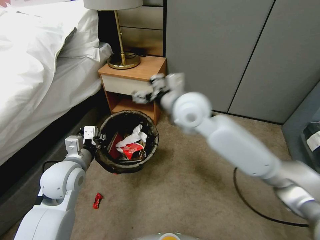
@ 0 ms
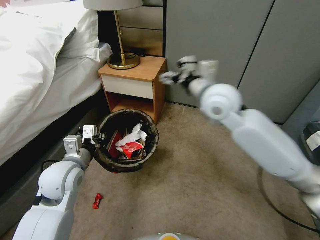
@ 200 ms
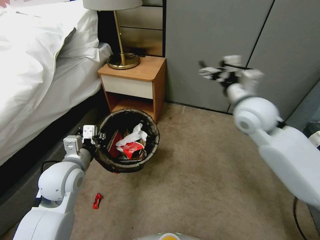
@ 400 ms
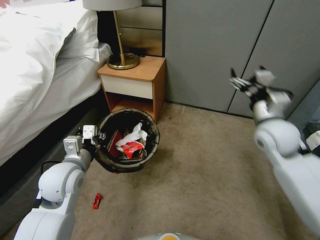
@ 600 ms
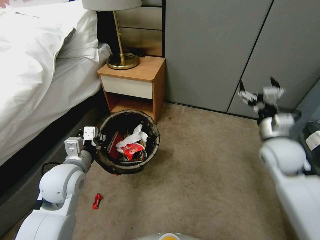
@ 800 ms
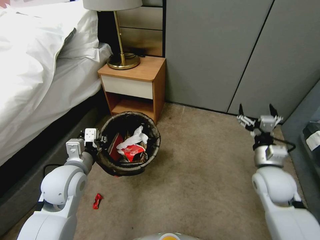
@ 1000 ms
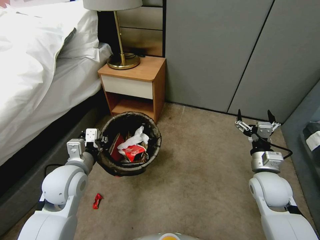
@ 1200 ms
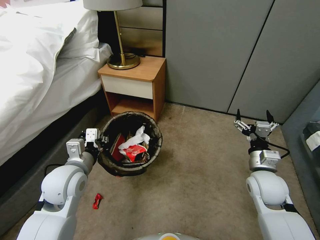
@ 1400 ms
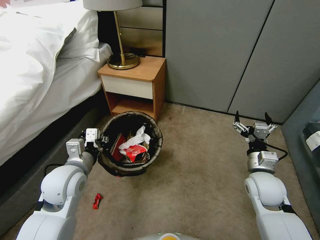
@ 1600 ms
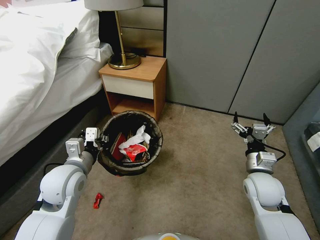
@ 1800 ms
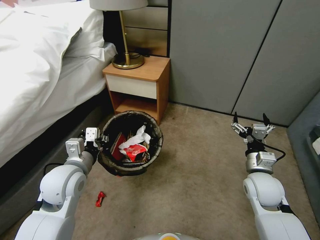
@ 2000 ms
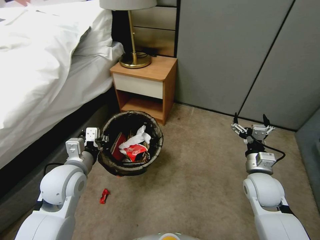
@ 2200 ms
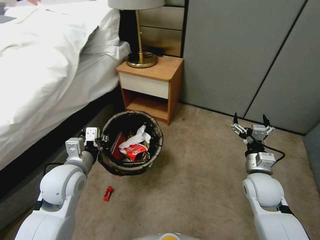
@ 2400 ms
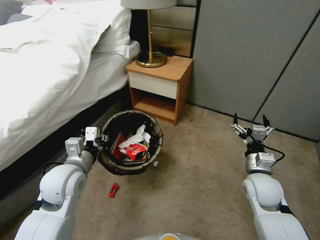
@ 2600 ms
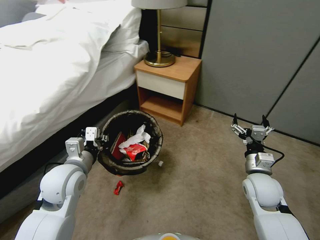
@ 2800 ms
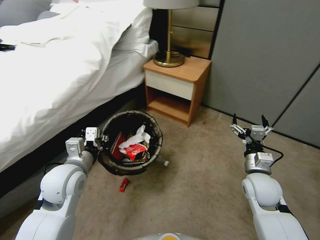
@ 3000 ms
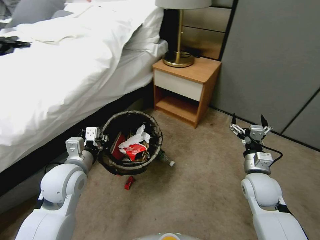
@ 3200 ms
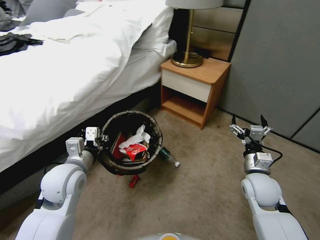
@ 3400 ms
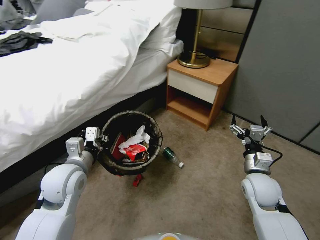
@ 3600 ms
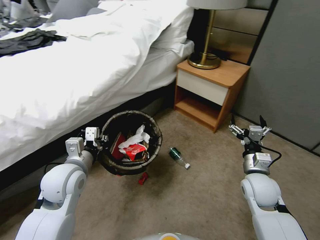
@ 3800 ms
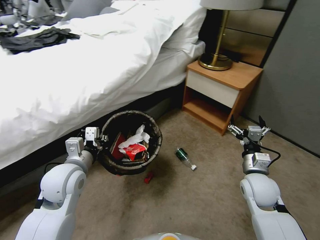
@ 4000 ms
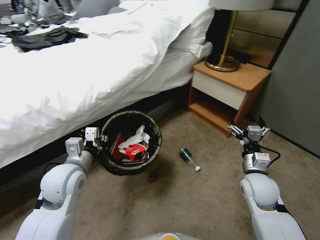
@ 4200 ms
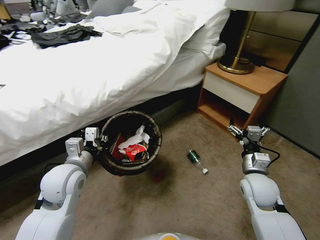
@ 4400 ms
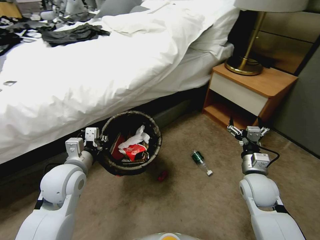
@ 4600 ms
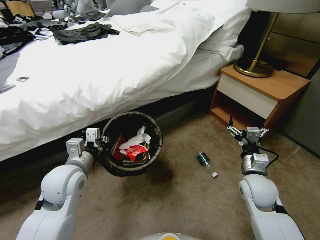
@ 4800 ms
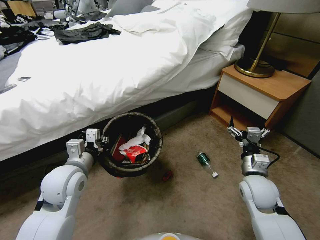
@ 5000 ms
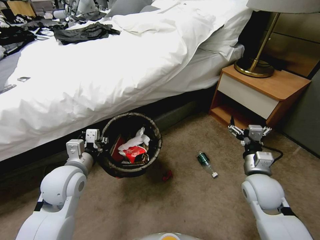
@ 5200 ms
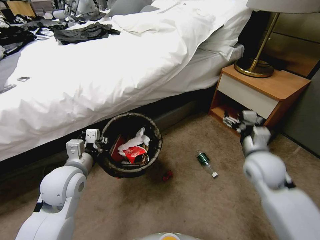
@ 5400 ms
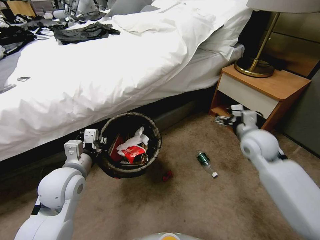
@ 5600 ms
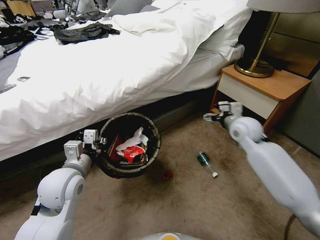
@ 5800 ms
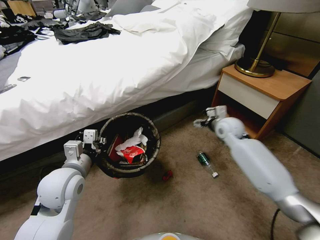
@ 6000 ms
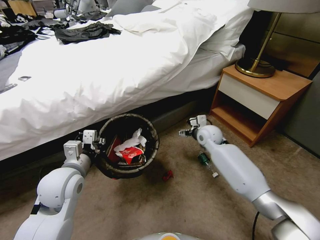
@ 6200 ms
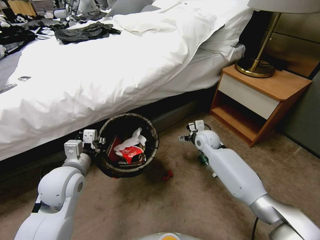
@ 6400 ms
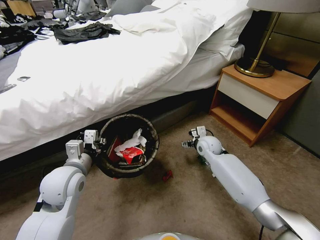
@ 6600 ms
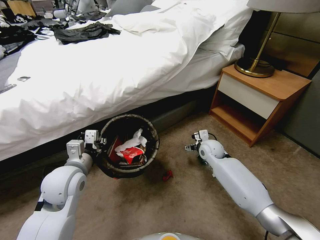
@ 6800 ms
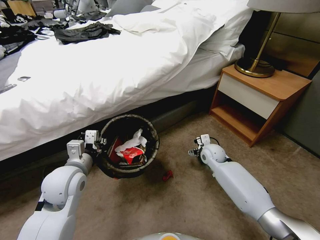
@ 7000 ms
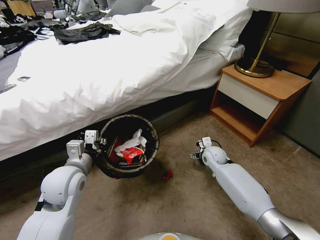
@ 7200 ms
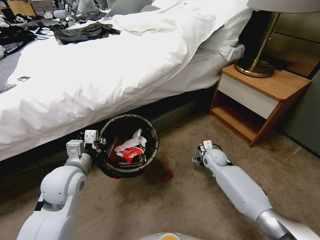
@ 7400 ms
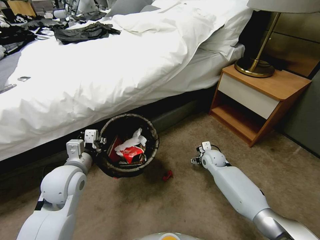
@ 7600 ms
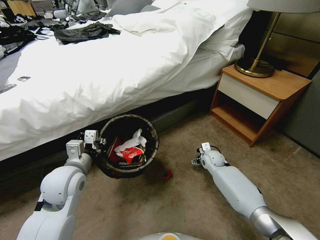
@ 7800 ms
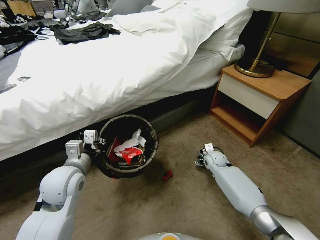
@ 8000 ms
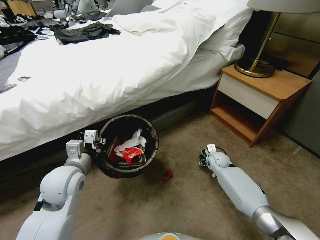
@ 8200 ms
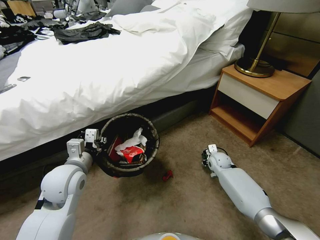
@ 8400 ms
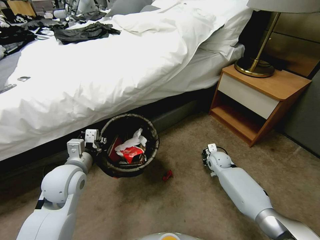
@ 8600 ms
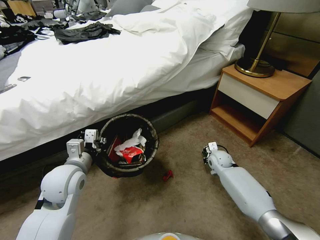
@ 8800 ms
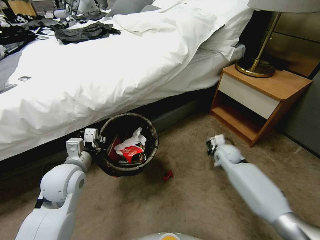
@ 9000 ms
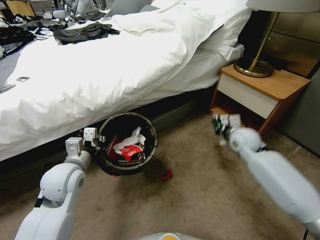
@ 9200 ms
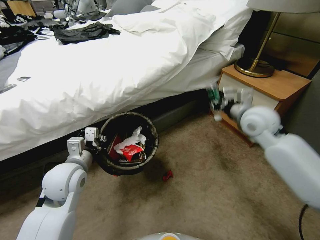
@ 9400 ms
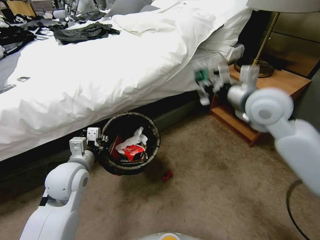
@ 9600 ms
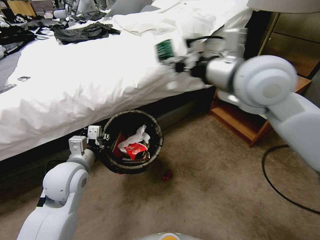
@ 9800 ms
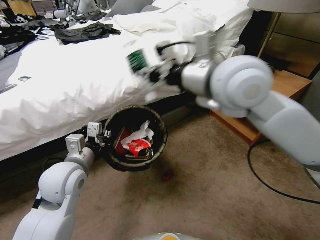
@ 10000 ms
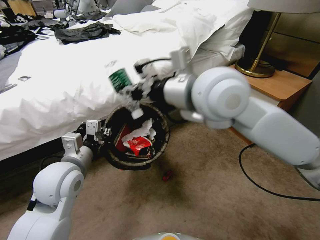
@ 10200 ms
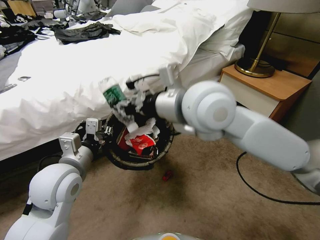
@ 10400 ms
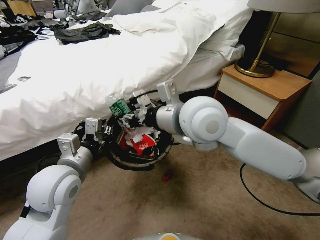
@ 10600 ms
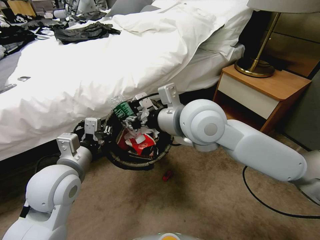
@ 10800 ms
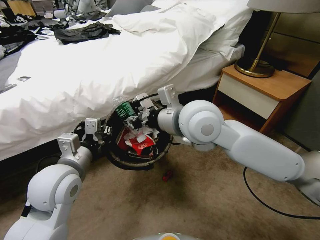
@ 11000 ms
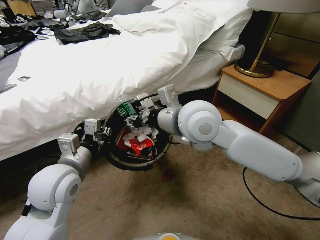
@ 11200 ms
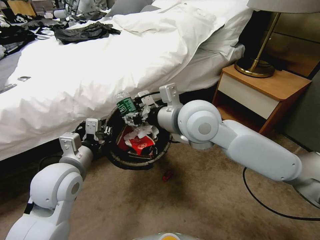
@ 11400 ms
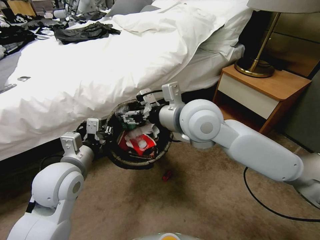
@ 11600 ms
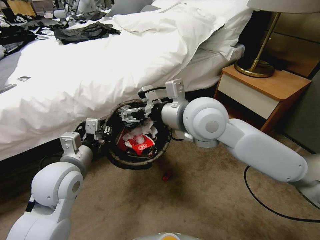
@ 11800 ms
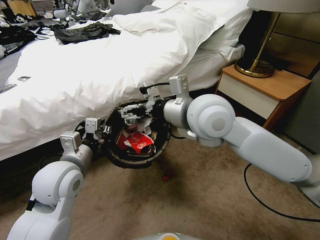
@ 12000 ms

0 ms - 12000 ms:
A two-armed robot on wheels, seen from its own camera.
Task of the whole recording: Pick up the trash bin, then pick up the garbage from the floor and place it into the trash bin.
0 ms - 1600 ms: The right gripper heads to the right, downward and backward, covering about 35 cm.
4400 ms - 6000 ms: The right gripper travels forward by some 20 cm.
6000 ms - 7600 ms: The right gripper moves downward, about 15 cm.
7600 ms - 9000 ms: The right gripper is displaced upward and to the right by about 10 cm, and closes up.
9000 ms - 10400 ms: The right gripper travels upward and to the left by some 40 cm, while the left gripper goes approximately 5 cm upward.
10400 ms - 12000 ms: The right gripper opens its fingers.

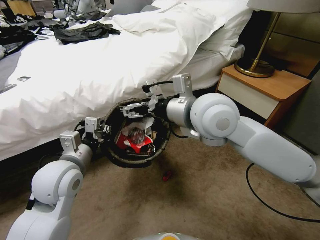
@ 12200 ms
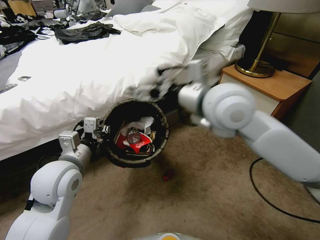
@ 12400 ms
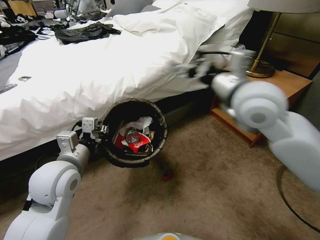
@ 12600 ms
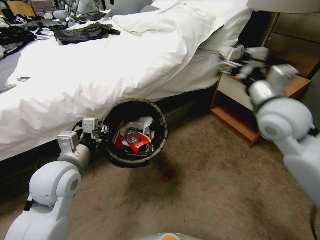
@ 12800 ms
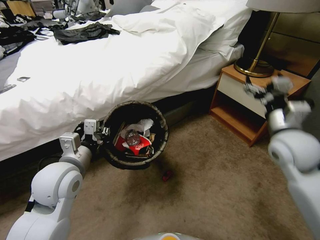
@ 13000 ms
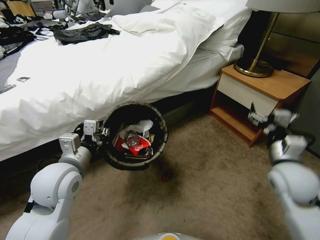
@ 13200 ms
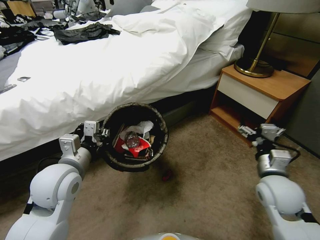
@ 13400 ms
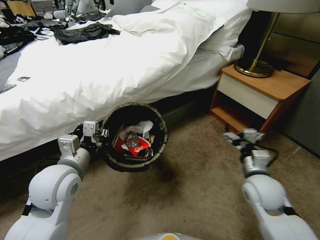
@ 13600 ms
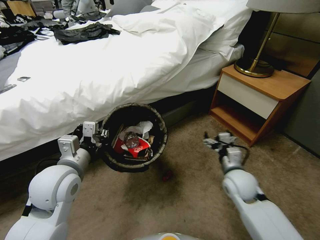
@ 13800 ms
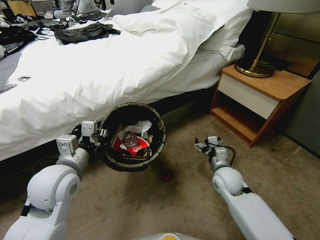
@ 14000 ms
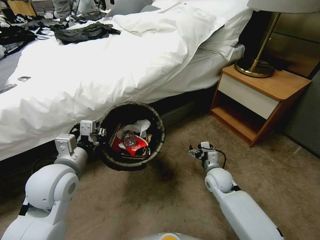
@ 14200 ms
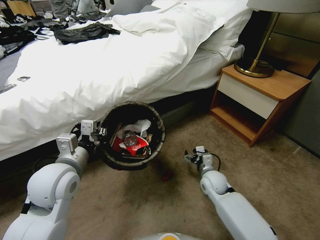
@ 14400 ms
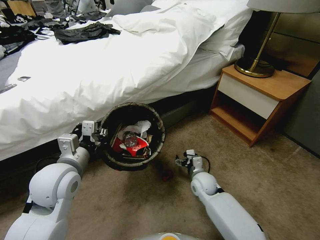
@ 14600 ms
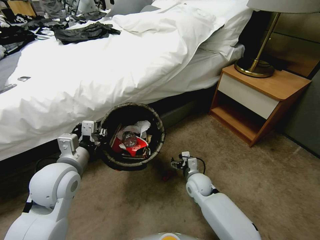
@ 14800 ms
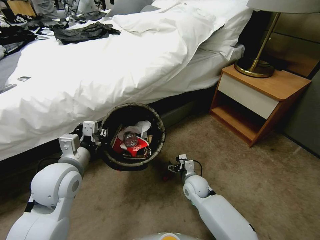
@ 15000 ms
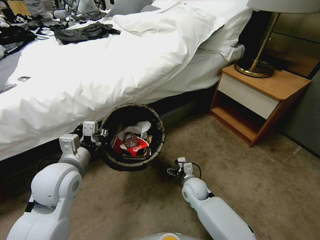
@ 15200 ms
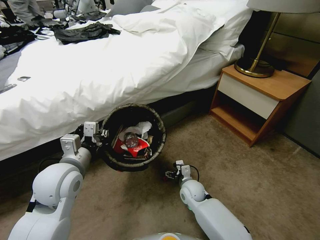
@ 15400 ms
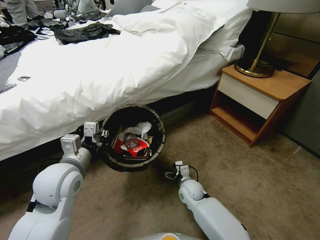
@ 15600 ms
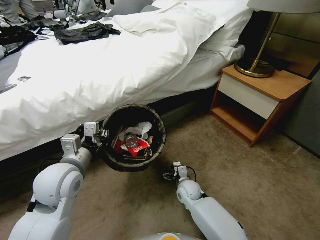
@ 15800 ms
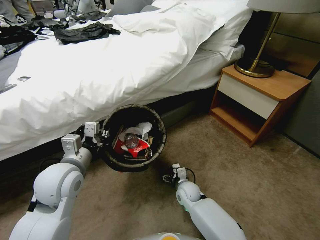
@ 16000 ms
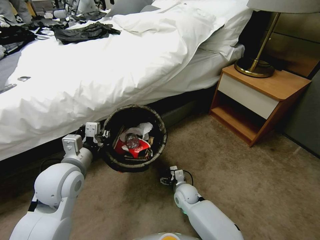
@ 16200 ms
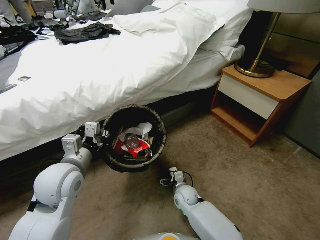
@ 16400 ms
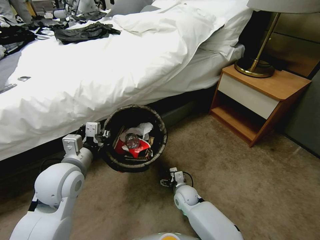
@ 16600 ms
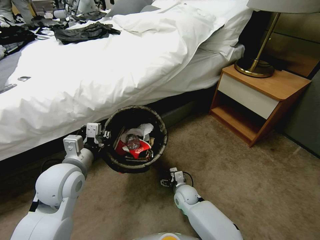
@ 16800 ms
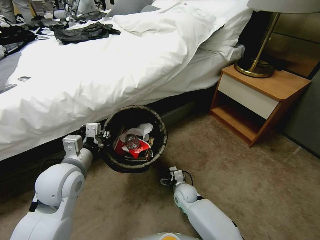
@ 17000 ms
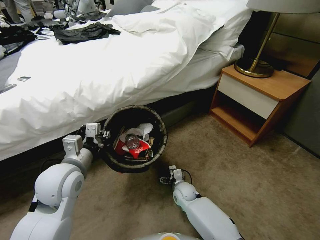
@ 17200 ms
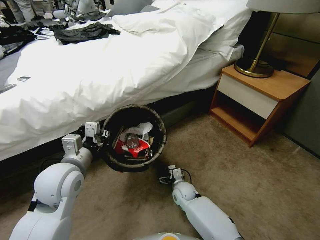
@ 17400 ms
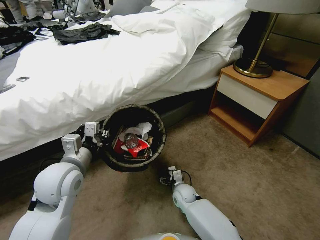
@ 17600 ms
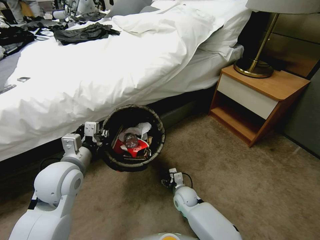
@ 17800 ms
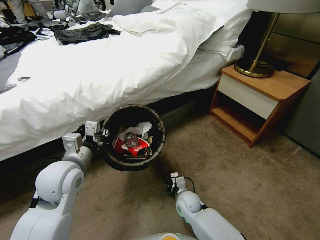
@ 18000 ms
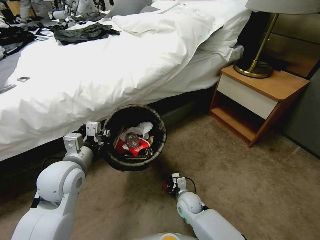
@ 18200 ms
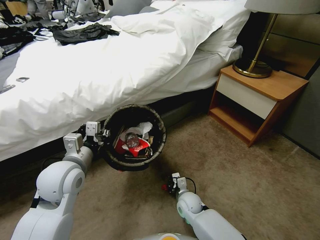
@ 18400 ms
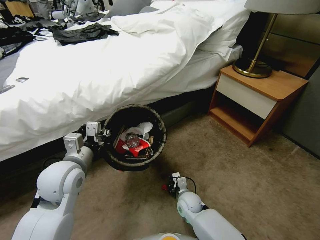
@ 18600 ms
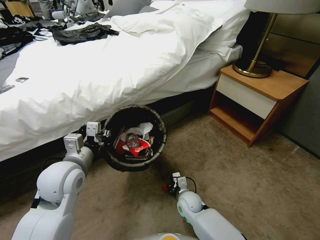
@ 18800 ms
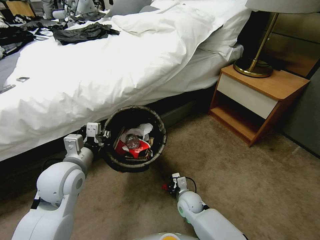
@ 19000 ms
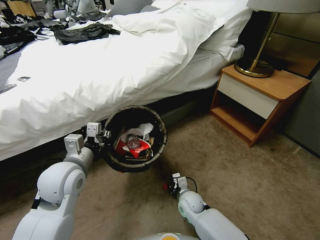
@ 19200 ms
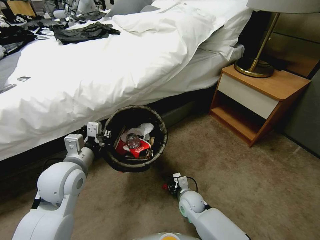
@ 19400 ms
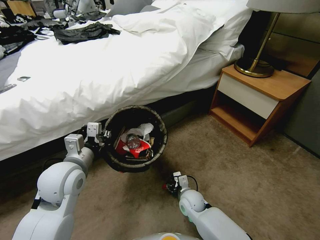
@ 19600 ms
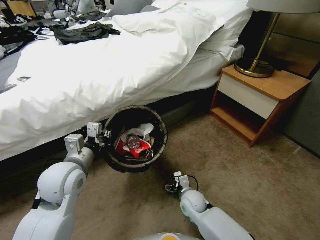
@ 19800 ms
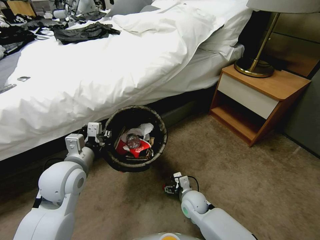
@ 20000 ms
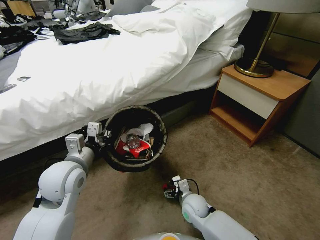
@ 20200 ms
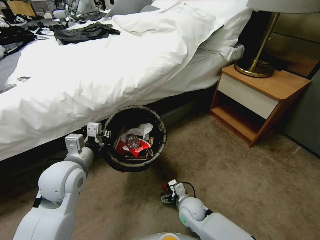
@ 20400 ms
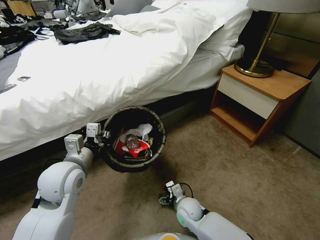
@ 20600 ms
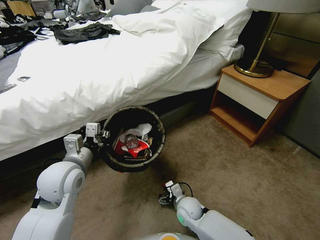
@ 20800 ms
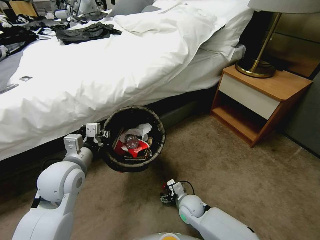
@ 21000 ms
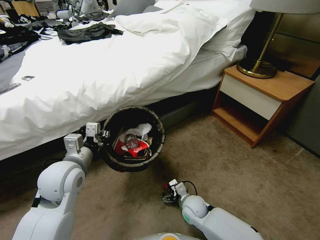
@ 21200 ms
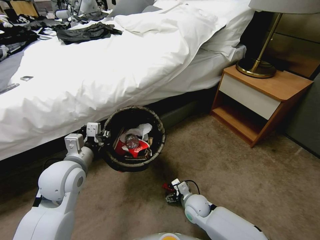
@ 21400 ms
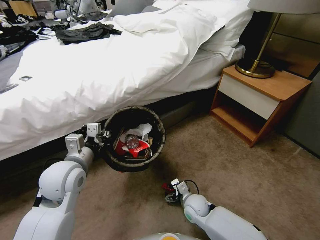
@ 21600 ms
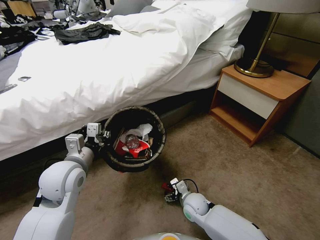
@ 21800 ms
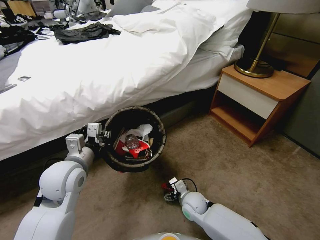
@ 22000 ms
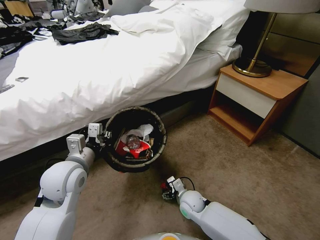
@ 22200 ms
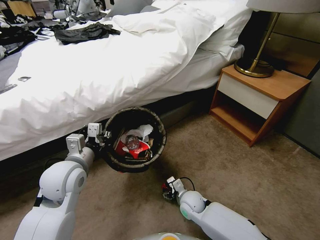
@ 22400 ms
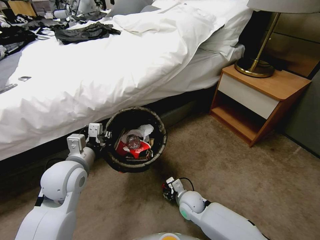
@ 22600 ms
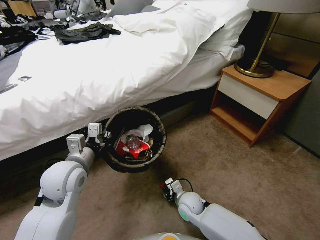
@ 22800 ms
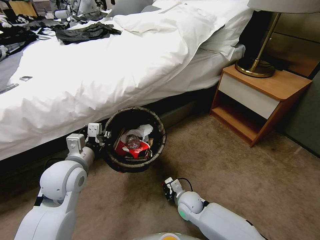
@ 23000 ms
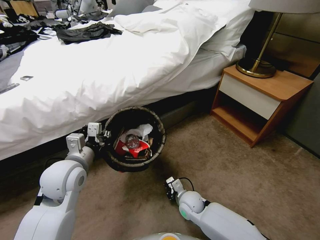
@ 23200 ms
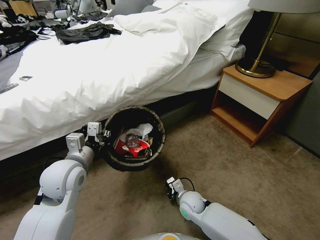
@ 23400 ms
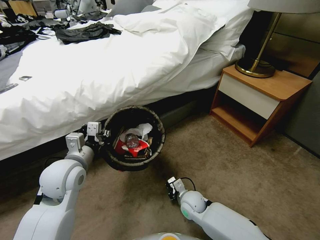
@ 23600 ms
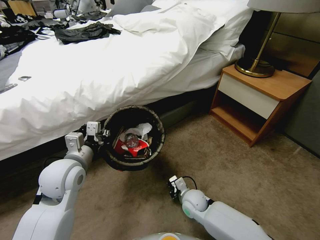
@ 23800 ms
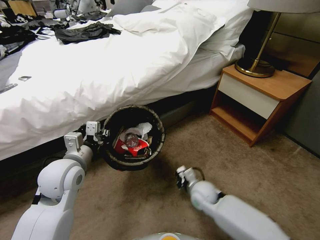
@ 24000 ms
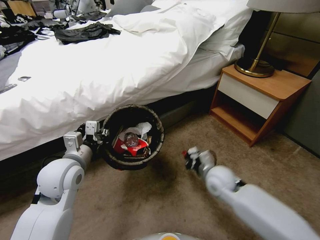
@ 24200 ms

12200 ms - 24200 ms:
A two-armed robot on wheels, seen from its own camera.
Task of the whole recording: Pick up the trash bin, then pick up the garbage from the floor and place it into the trash bin.
12200 ms - 13800 ms: The right gripper heads downward and to the right, covering some 35 cm.
13800 ms - 15200 ms: The right gripper moves downward and to the left, about 20 cm.
15200 ms - 16600 ms: The right gripper ends up some 5 cm from where it was.
16600 ms - 18200 ms: The right gripper closes its fingers.
18200 ms - 19800 ms: The right gripper opens up.
19800 ms - 21200 ms: The grippers move only a little.
21200 ms - 22600 ms: The right gripper closes up.
22600 ms - 24200 ms: The right gripper heads upward and to the right, covering roughly 15 cm, and closes its fingers.
